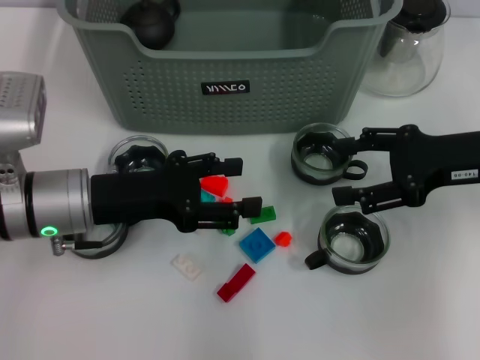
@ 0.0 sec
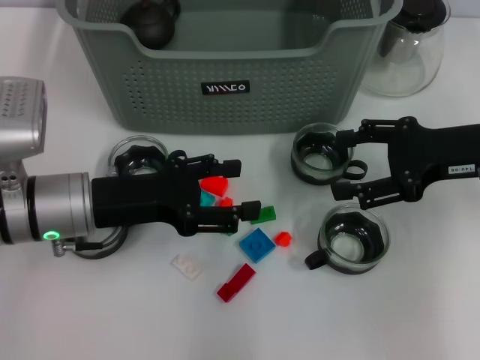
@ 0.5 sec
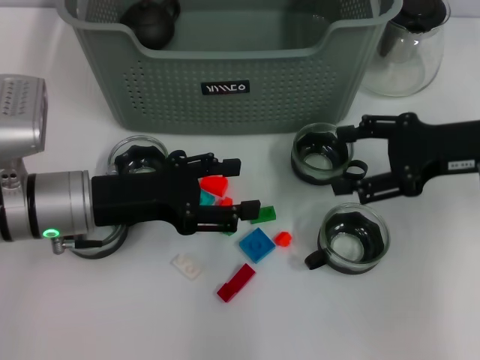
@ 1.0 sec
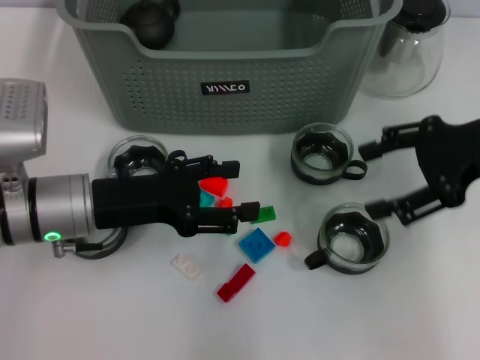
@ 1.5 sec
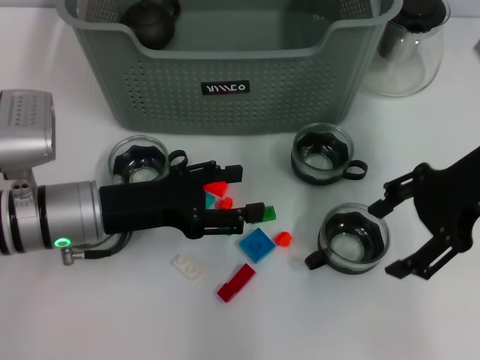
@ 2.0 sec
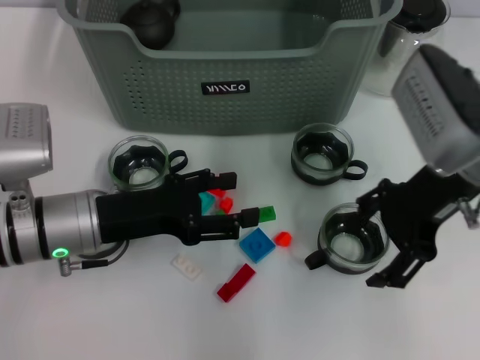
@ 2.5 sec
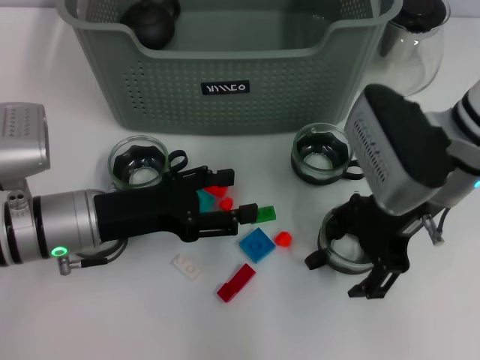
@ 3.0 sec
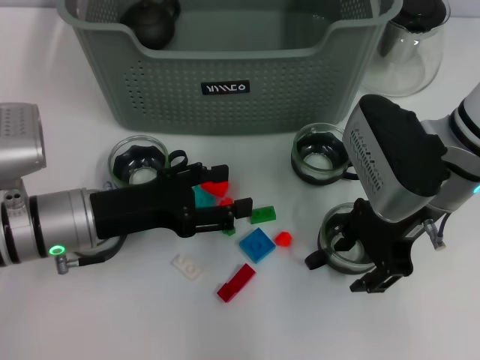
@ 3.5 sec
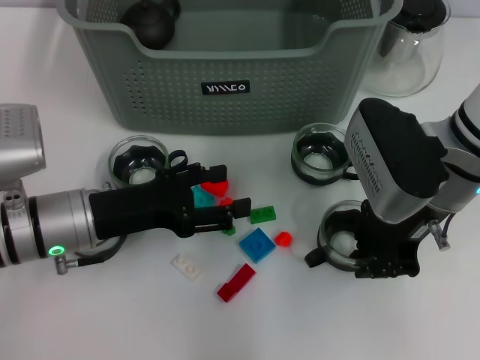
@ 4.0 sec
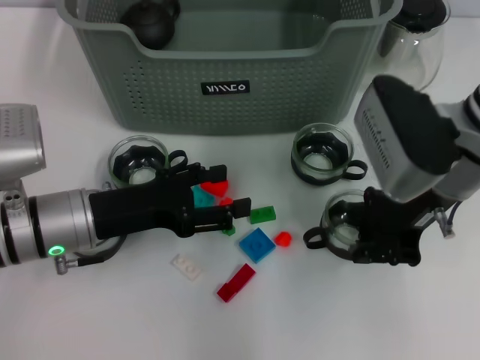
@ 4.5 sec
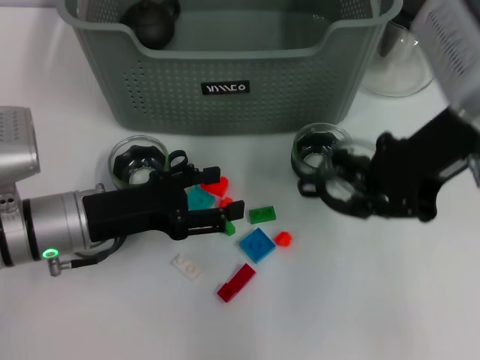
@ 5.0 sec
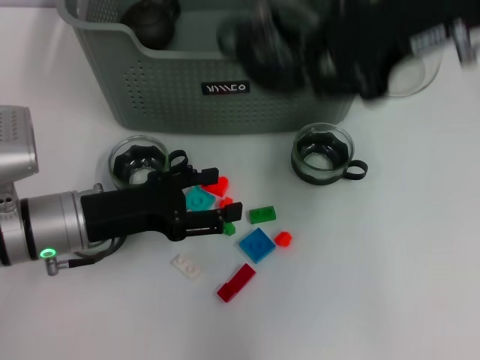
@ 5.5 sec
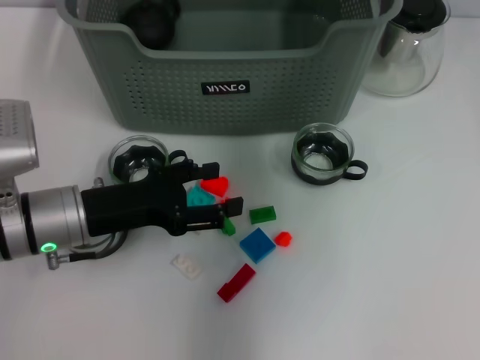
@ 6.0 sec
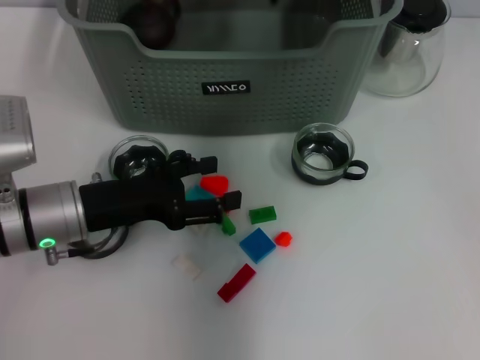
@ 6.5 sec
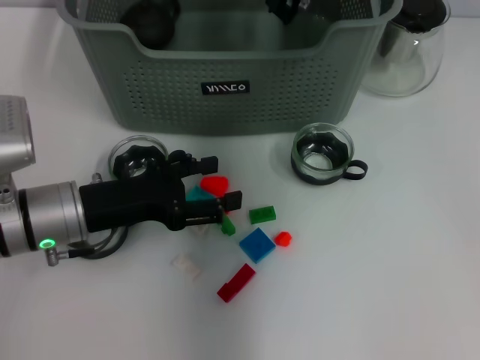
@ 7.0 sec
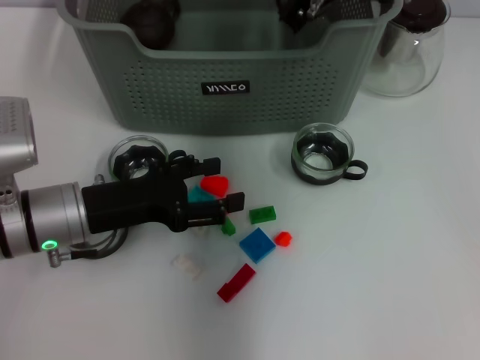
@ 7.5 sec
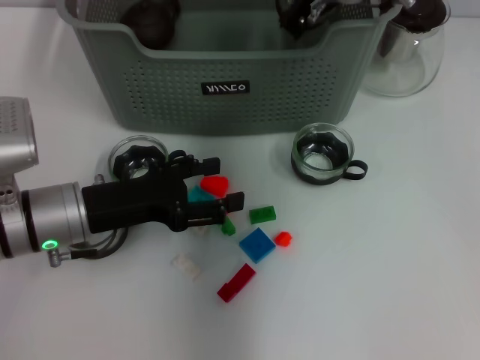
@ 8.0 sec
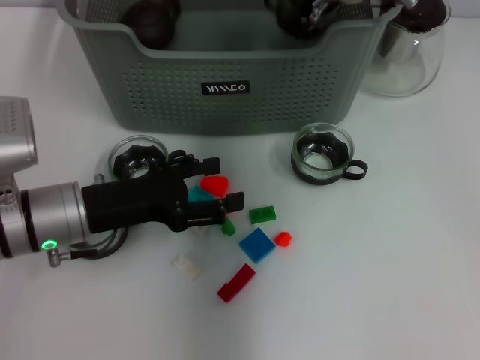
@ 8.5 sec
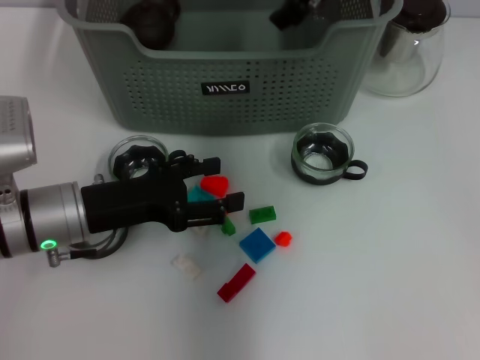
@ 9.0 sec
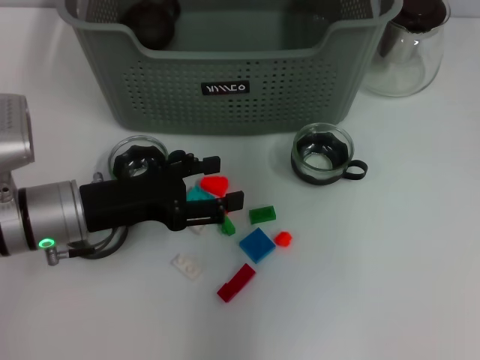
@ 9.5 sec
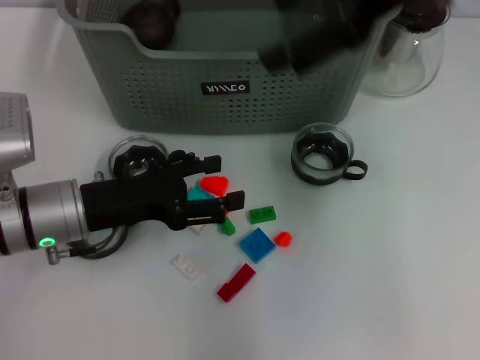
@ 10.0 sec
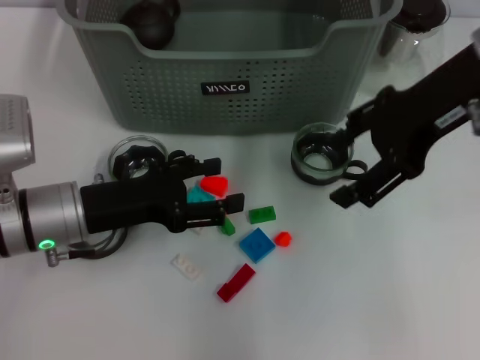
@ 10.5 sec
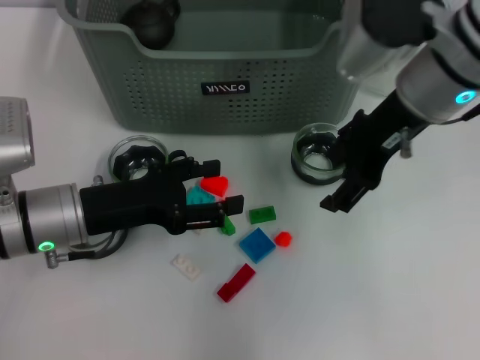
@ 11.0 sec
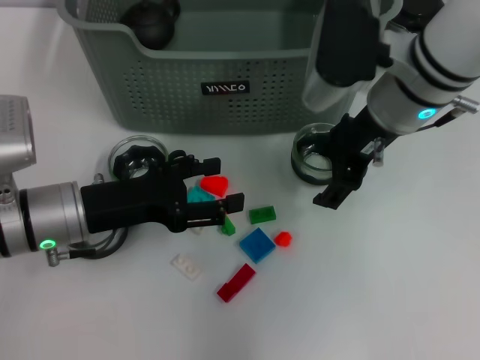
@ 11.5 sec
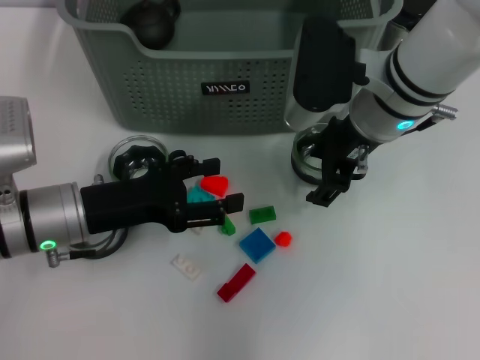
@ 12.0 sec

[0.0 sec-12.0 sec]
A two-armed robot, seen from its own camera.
Task of the whole recording: pick up the teacup on the table and place it into the storage bin, pick up the block on the table and place it into the storage bin.
Step, 0.0 sec to 4.0 sec: Grasp the cup with right gripper.
Step, 4.5 sec to 8.5 sec: Place the cup in the storage box with right gripper.
0.0 sec to 2.0 sec: The right gripper is displaced upward by approximately 5 cm.
2.0 sec to 4.0 sec: The right gripper travels to the left by roughly 10 cm, and closes.
4.0 sec to 6.0 sec: The right gripper goes roughly 20 cm upward and forward, and closes up.
6.0 sec to 8.0 sec: The right gripper shifts roughly 10 cm downward.
8.0 sec to 10.0 sec: The right gripper heads upward, backward and to the right, covering about 15 cm, and opens up.
10.0 sec to 12.0 sec: The right gripper heads downward, covering about 15 cm.

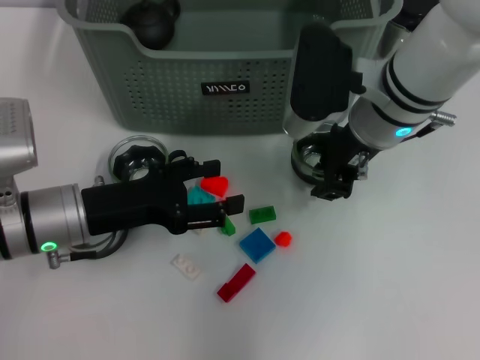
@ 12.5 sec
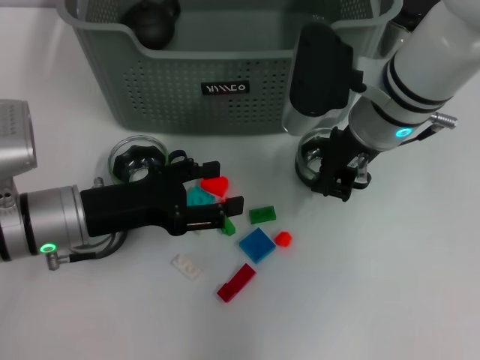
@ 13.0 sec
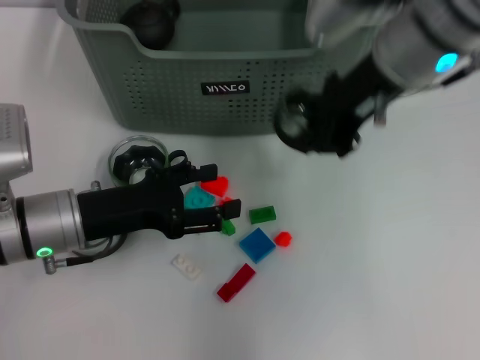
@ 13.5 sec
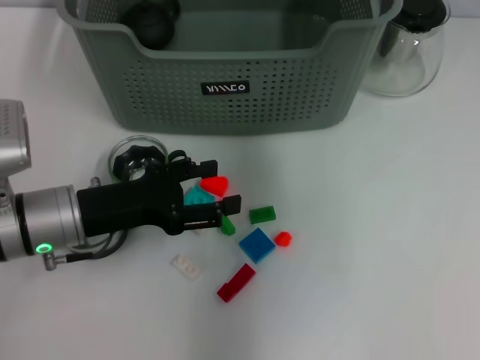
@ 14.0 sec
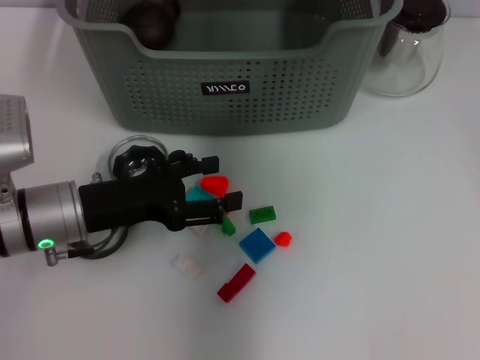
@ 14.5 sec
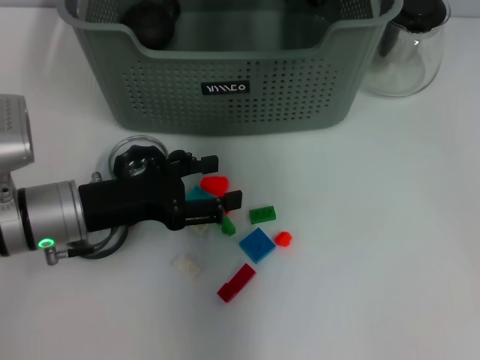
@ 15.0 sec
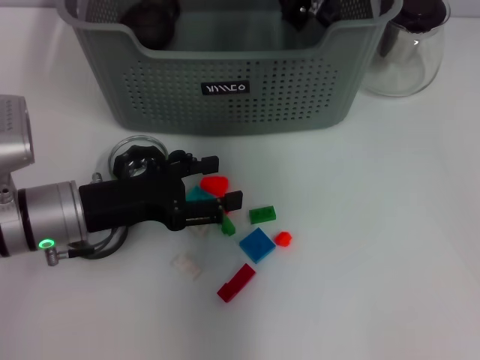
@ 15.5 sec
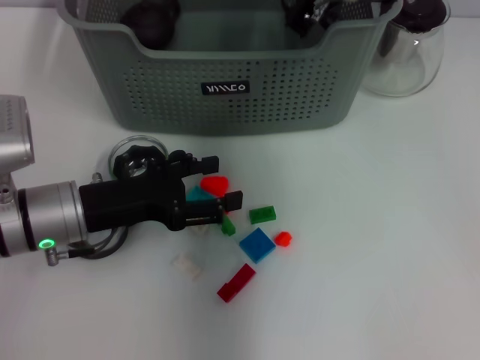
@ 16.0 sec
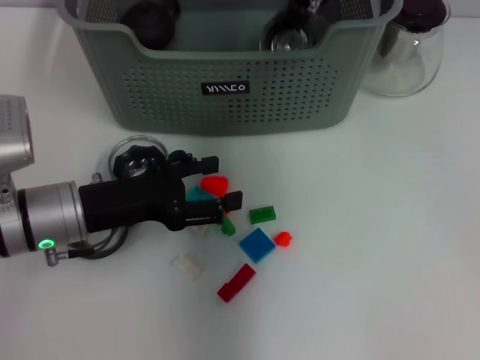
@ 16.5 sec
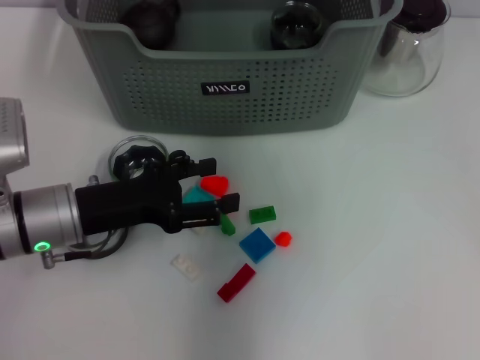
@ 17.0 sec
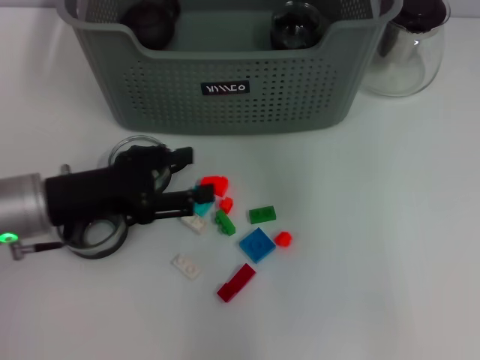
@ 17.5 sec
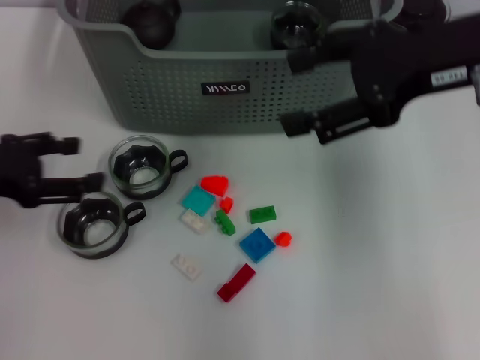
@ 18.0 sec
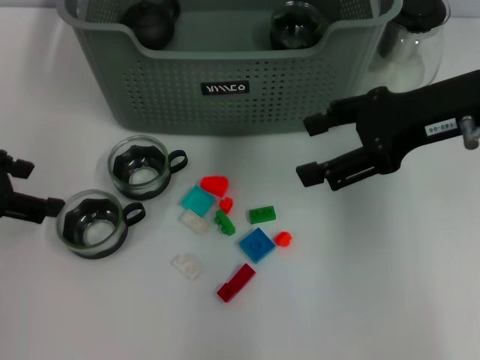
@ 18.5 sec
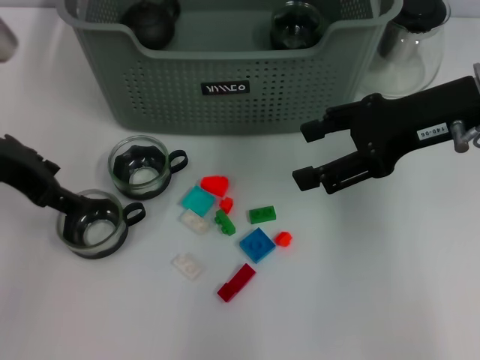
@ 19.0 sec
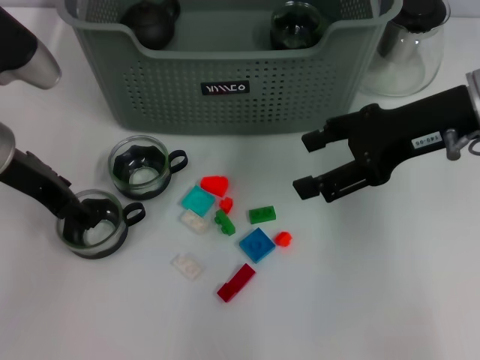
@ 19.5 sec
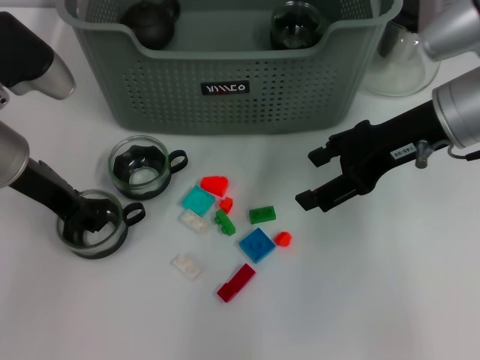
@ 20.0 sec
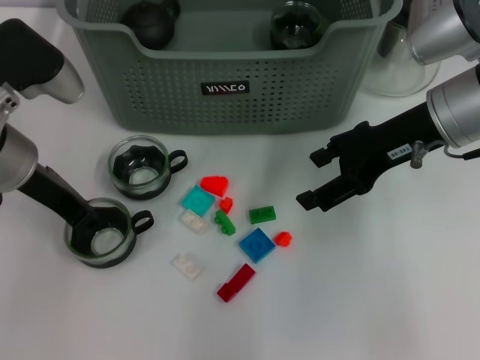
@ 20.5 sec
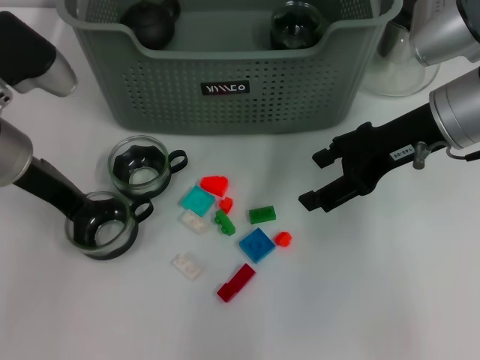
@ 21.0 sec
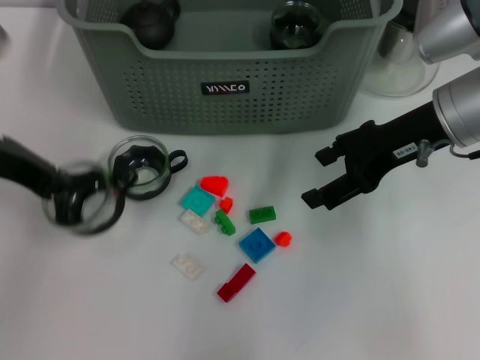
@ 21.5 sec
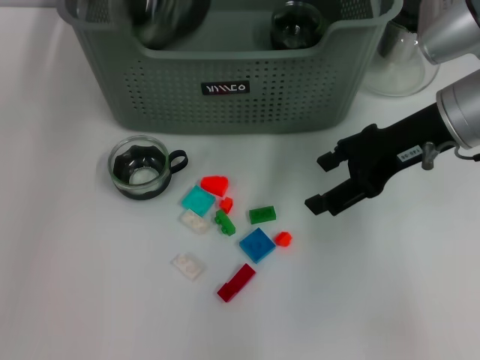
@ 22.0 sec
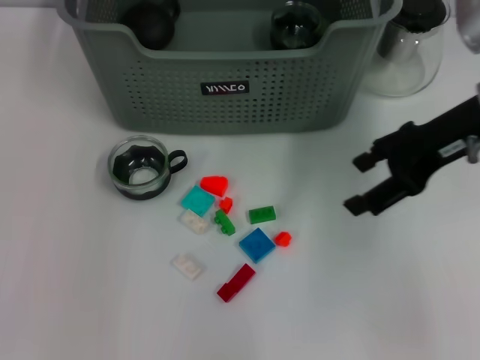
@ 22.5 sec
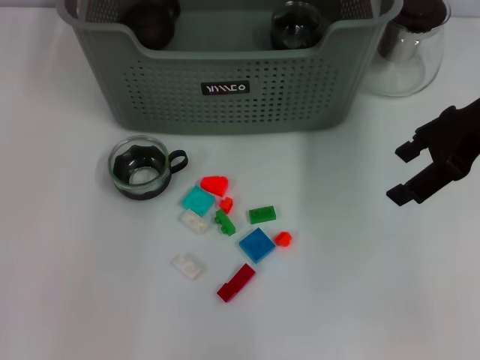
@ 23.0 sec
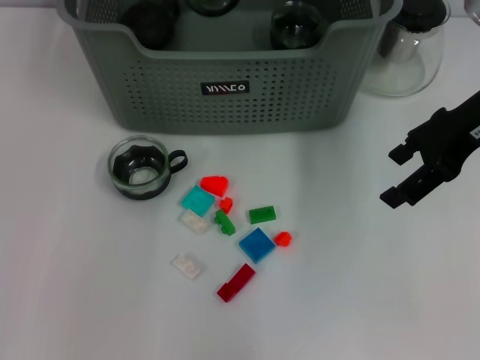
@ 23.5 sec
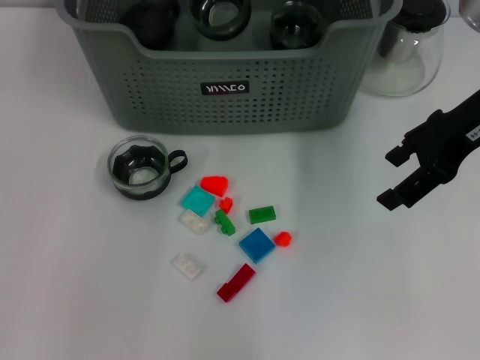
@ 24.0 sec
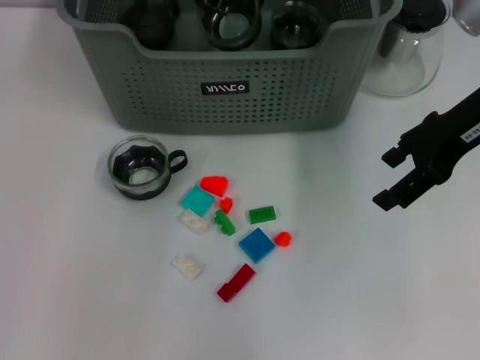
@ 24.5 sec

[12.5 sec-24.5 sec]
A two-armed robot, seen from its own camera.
Task of the whole recording: pick up the teacup on the table and place it into the storage bin, pick up the block on the table and place it into the storage bin.
Step, 13.5 sec to 16.0 sec: Place the cup in the storage box with right gripper.
Step, 16.5 sec to 20.5 sec: Grasp the cup with left gripper.
12.5 sec to 14.5 sec: The right gripper shifts some 20 cm upward and forward, and closes up.
16.5 sec to 18.5 sec: The left gripper moves upward and to the left, roughly 15 cm. Meanwhile the right gripper shifts some 20 cm backward and to the right, and opens.
18.5 sec to 20.5 sec: The left gripper shifts roughly 10 cm to the right, downward and forward, and closes up. Meanwhile the right gripper ends up approximately 5 cm from where it was.
20.5 sec to 22.5 sec: The left gripper travels upward and forward by about 20 cm, and closes up.
22.5 sec to 24.5 sec: The left gripper shifts about 10 cm downward and to the right.

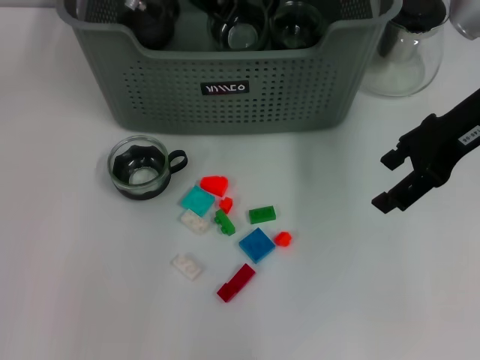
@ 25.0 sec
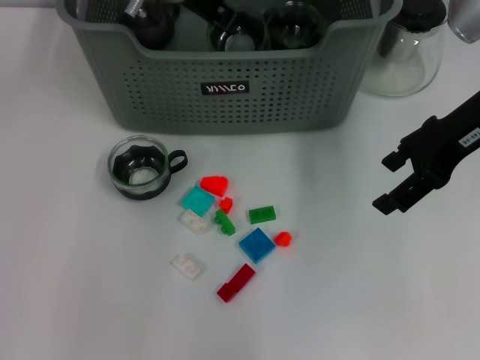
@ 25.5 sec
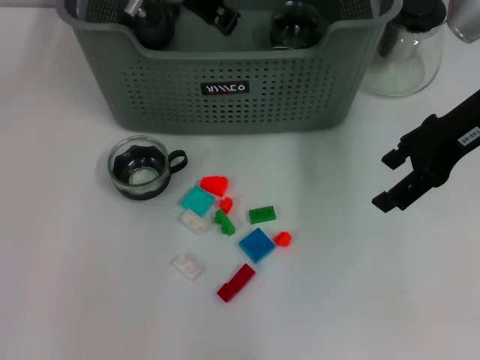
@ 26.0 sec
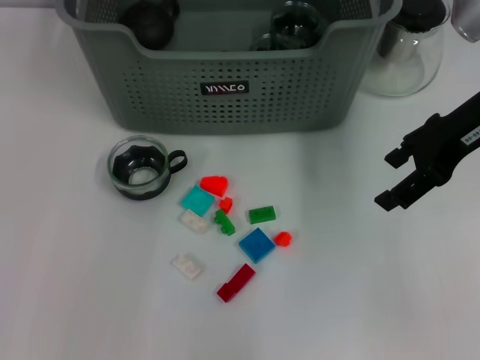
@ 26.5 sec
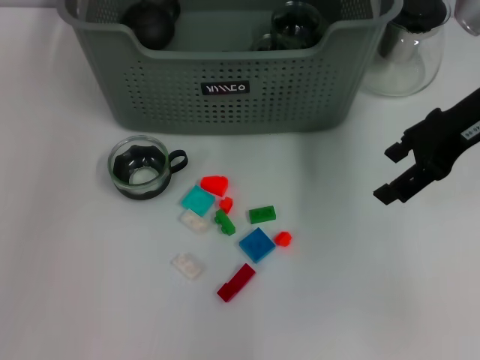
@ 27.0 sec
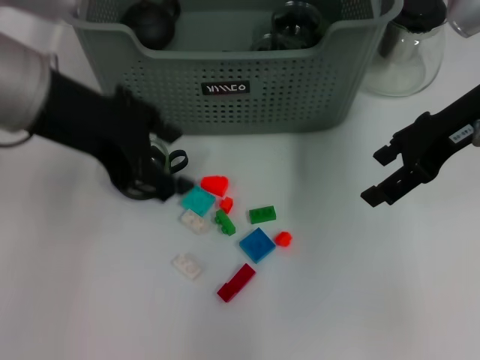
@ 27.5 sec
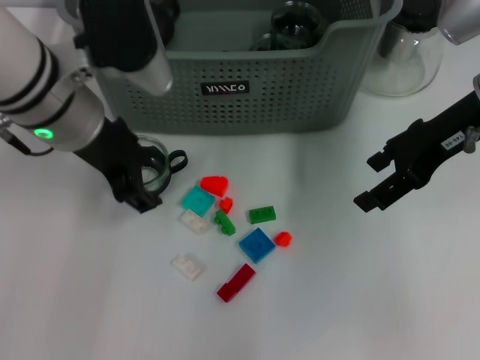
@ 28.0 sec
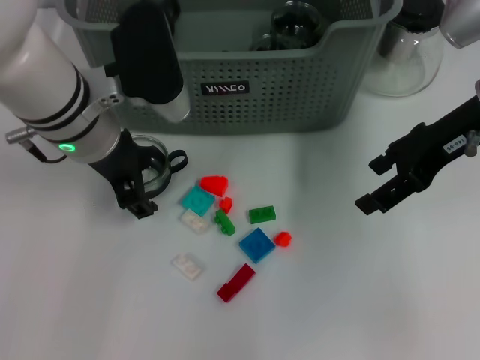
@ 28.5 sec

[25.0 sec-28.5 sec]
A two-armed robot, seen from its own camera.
Task of the whole recording: pick up the teacup on the table and place it into the storage bin, pick up the block on the table and place it into the storage bin.
25.0 sec to 27.0 sec: The left gripper is displaced upward, backward and to the left by about 20 cm, and opens up.
27.0 sec to 28.5 sec: The left gripper moves downward, roughly 20 cm.
